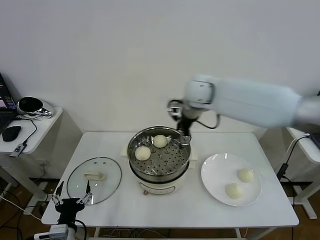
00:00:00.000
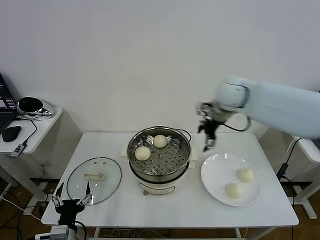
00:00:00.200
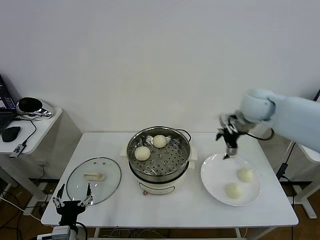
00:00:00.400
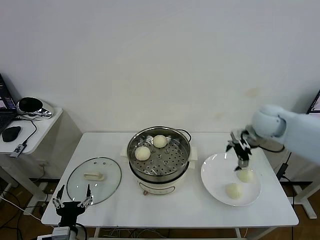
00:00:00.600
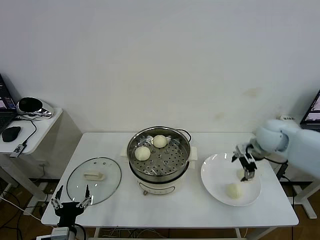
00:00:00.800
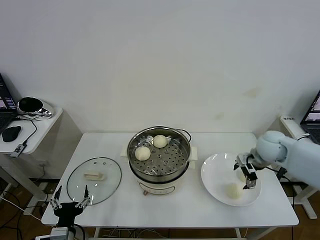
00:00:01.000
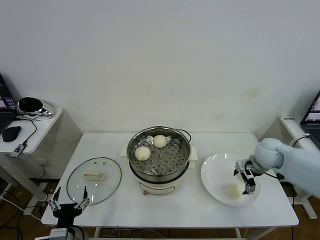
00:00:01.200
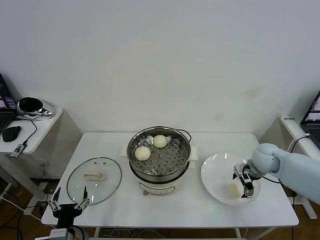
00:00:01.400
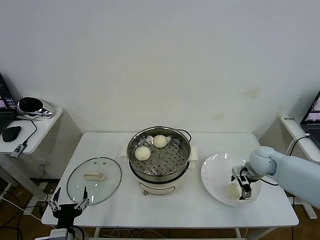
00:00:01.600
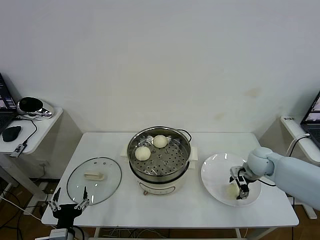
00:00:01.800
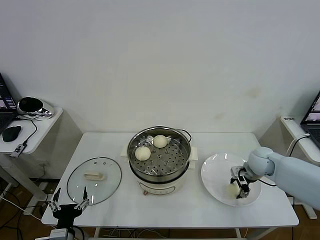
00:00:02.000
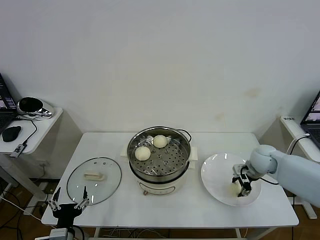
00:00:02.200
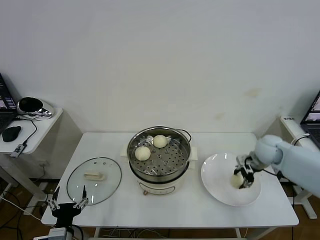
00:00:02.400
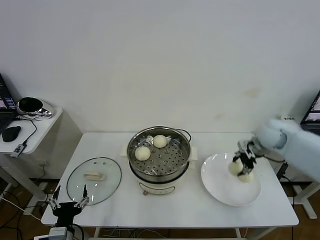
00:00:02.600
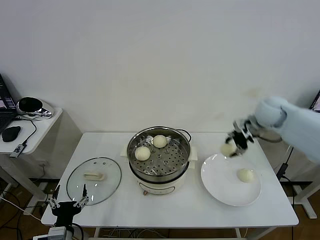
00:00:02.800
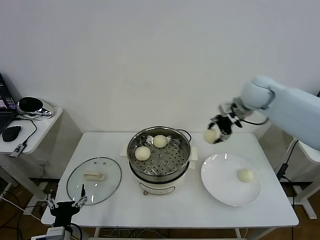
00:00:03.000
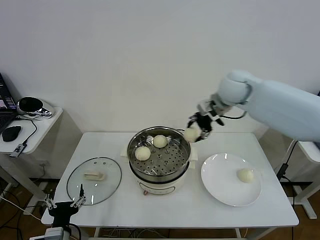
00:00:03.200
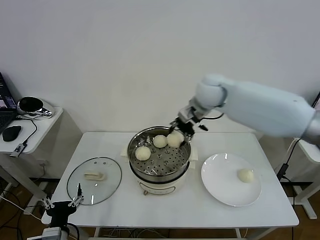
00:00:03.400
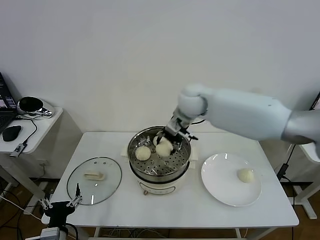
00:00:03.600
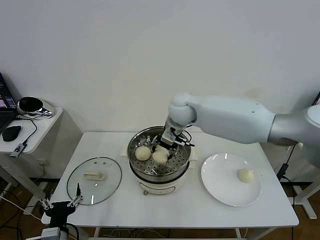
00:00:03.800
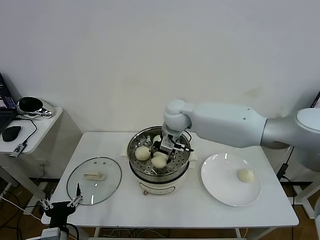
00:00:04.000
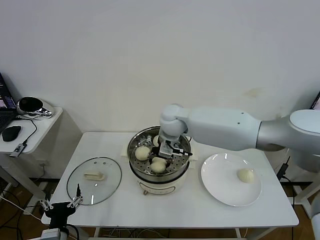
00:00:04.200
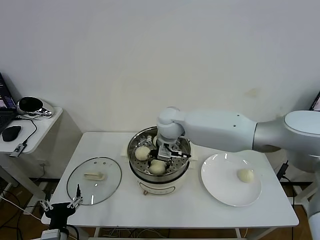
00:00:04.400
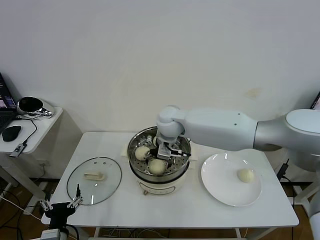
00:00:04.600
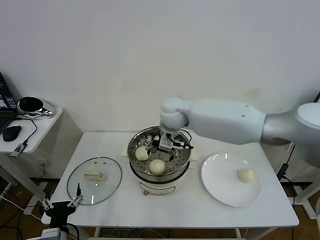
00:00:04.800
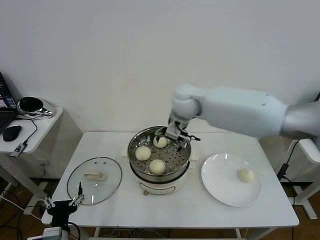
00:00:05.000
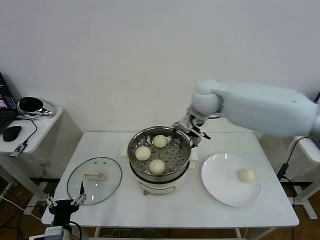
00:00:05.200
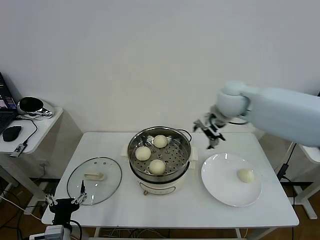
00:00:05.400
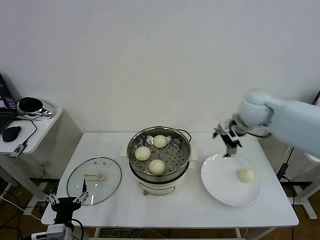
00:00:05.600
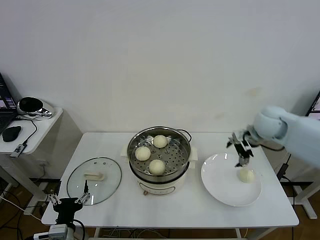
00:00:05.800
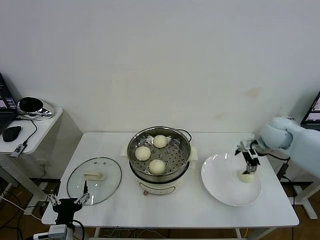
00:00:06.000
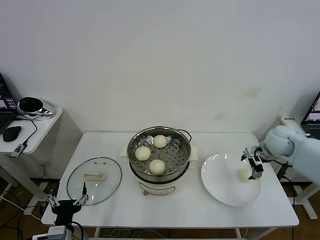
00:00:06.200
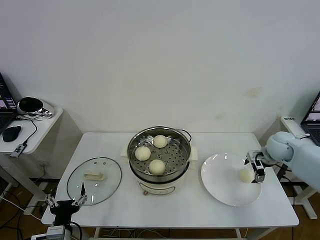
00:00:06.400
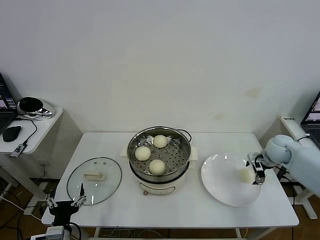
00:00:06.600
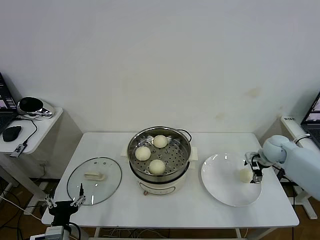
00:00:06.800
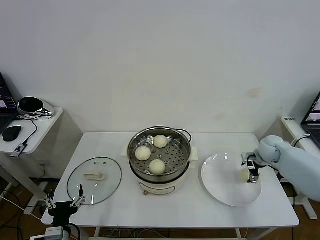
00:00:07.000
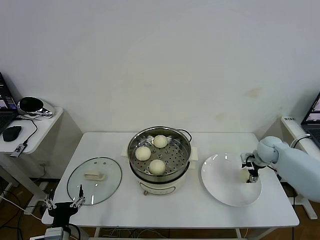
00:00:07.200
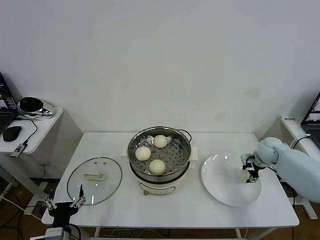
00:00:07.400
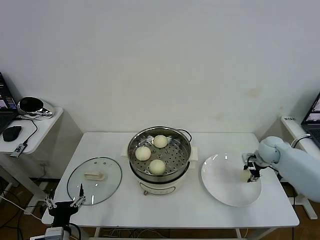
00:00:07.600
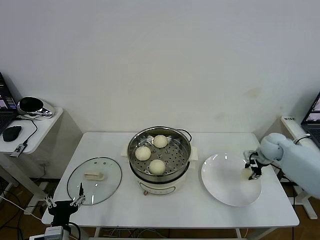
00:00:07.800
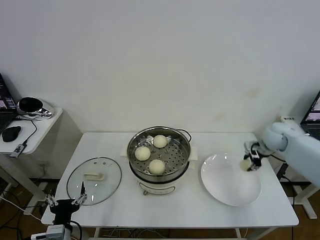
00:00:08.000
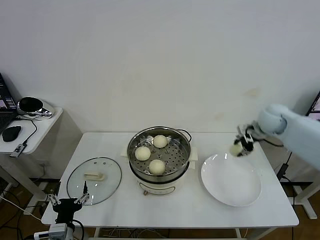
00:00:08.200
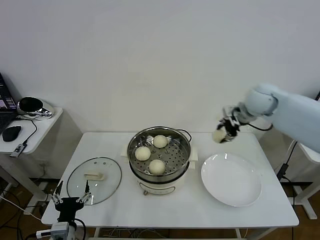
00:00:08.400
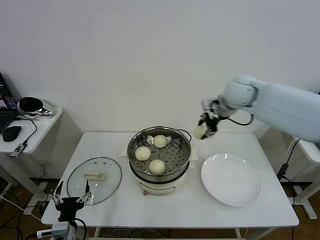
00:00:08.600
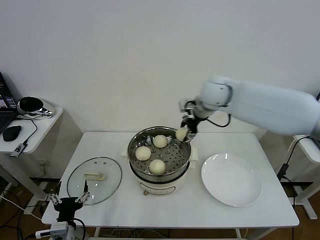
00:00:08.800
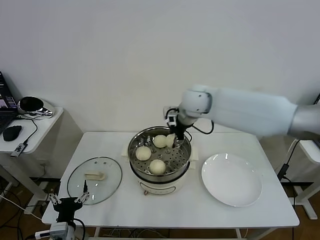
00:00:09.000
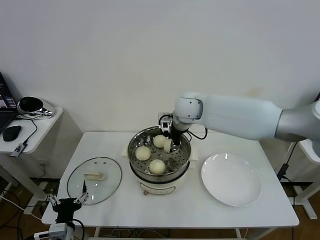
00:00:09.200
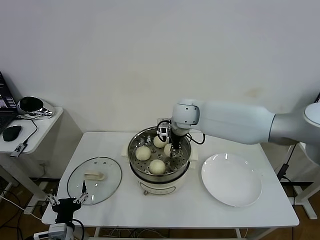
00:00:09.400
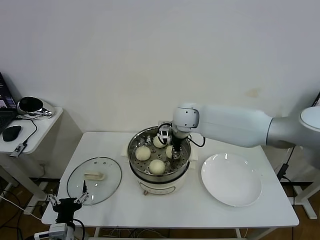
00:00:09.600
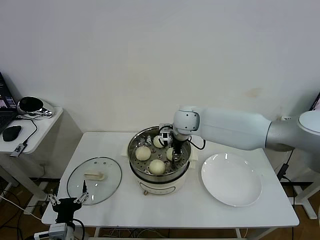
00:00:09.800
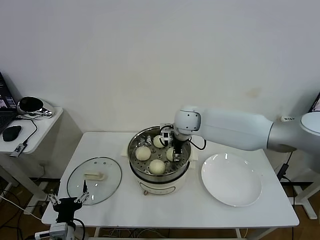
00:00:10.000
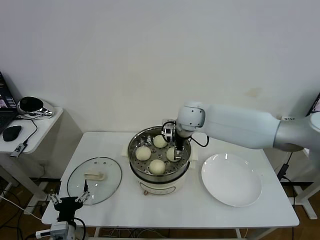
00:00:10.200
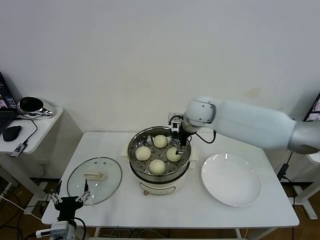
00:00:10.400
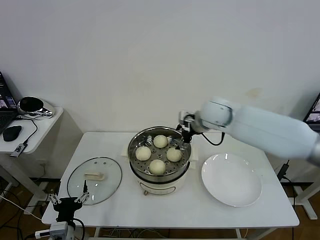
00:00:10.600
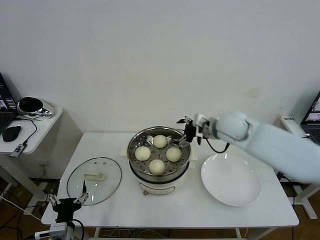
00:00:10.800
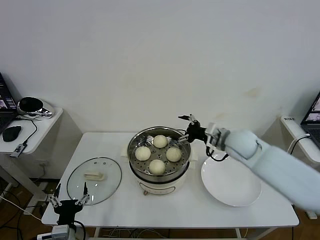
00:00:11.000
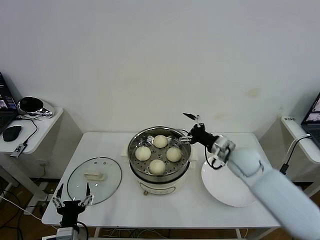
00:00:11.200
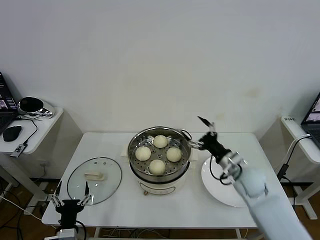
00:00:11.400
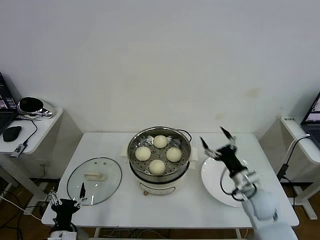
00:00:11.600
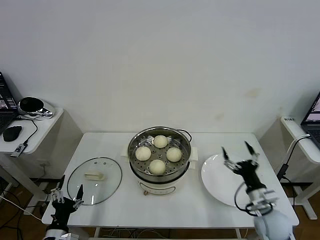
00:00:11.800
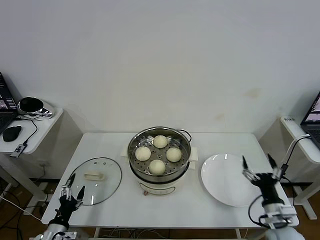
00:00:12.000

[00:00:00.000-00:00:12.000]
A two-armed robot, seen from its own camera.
Task of the whole recording: take steamed baozi put them in steamer then cover it.
Step, 00:00:00.000 to 00:00:02.000: Grasp the baozi in the plate with right gripper.
Step, 00:00:02.200 to 00:00:04.800: Place the baozi on the steamer with right gripper.
Step, 00:00:05.000 to 00:00:07.400: Grasp the baozi in the plate with right gripper.
Step, 00:00:07.600 to 00:00:10.400: Place the baozi on the steamer with right gripper.
00:00:00.000 to 00:00:01.600: The right gripper heads downward and to the right, covering some 30 cm.
00:00:01.600 to 00:00:03.000: The right gripper heads upward and to the left, covering about 25 cm, and closes its fingers.
00:00:03.000 to 00:00:04.400: The right gripper travels to the left and downward by some 25 cm, and opens.
00:00:04.400 to 00:00:06.000: The right gripper travels to the right by roughly 35 cm.
00:00:06.000 to 00:00:07.600: The right gripper moves downward, roughly 10 cm, and closes its fingers.
00:00:07.600 to 00:00:09.000: The right gripper goes approximately 40 cm to the left and upward.
00:00:09.000 to 00:00:10.400: The right gripper opens.
00:00:10.400 to 00:00:12.000: The right gripper goes approximately 50 cm backward, downward and to the right. The left gripper travels to the left by some 10 cm.

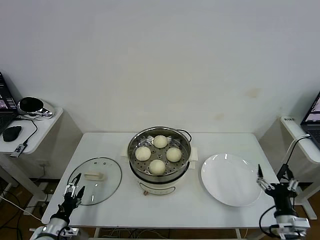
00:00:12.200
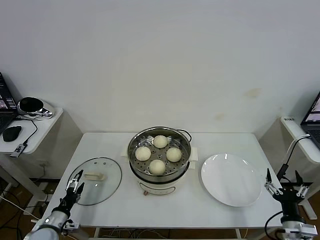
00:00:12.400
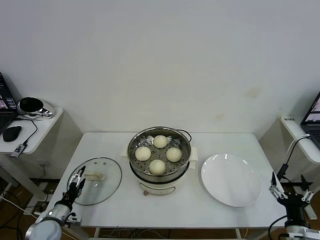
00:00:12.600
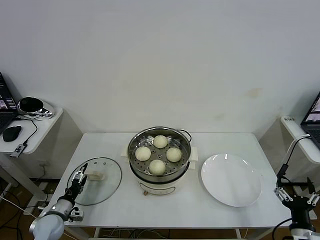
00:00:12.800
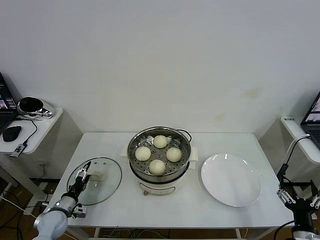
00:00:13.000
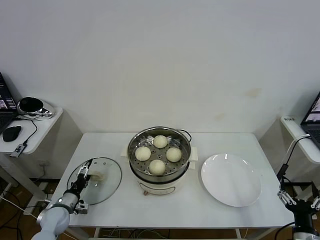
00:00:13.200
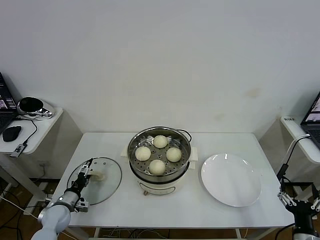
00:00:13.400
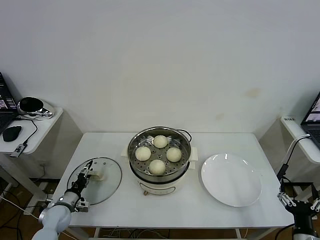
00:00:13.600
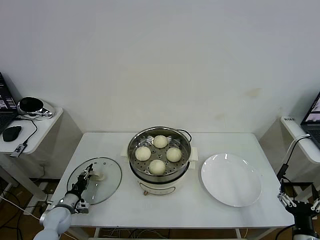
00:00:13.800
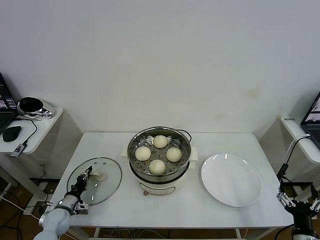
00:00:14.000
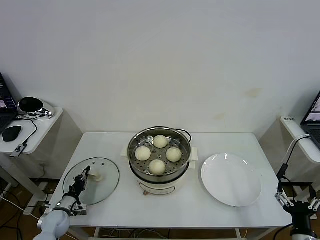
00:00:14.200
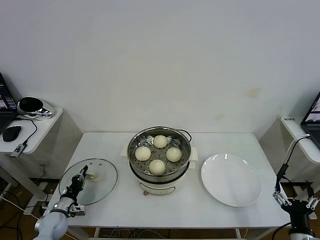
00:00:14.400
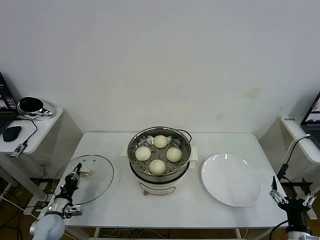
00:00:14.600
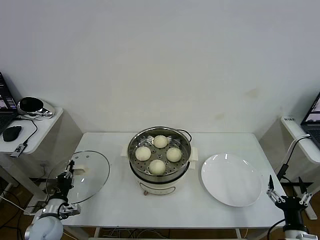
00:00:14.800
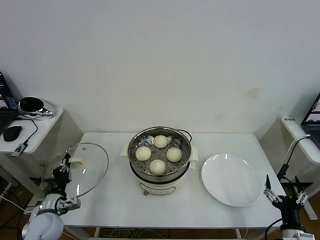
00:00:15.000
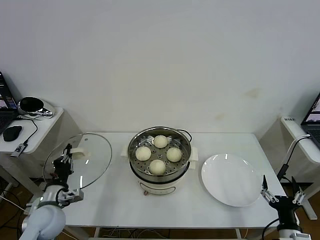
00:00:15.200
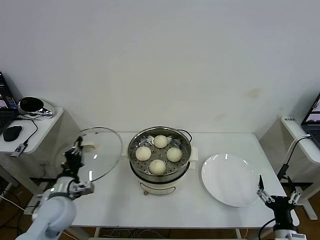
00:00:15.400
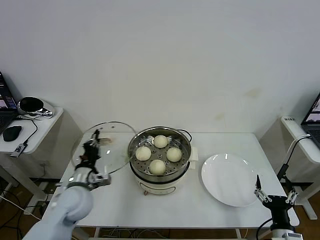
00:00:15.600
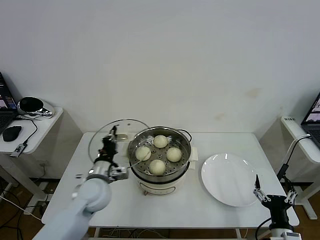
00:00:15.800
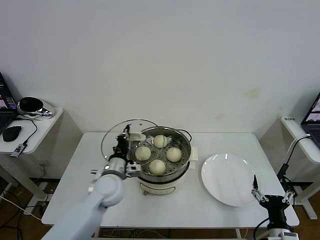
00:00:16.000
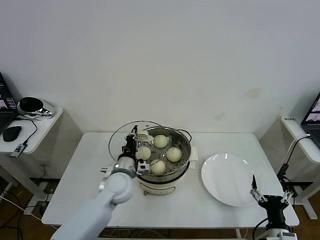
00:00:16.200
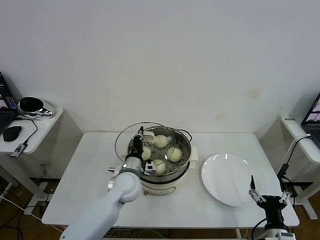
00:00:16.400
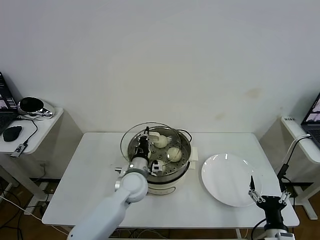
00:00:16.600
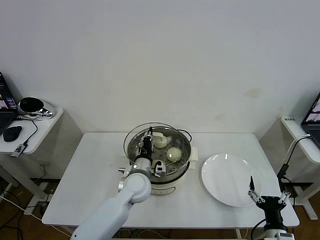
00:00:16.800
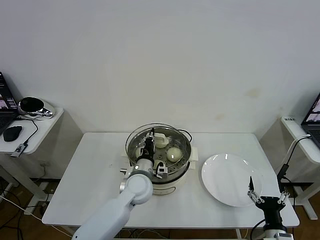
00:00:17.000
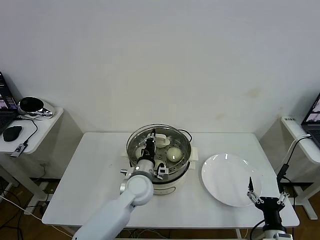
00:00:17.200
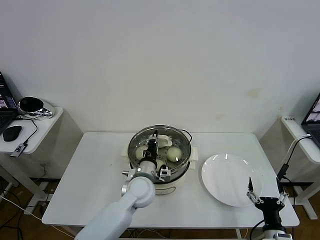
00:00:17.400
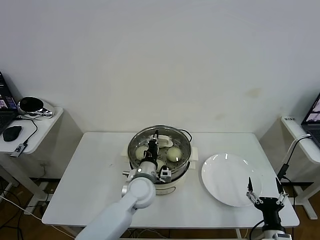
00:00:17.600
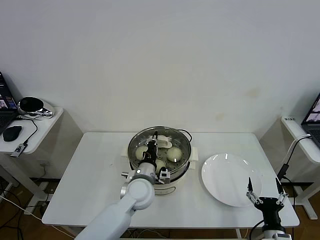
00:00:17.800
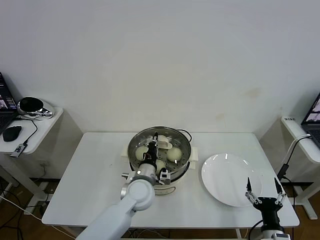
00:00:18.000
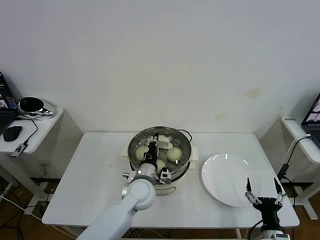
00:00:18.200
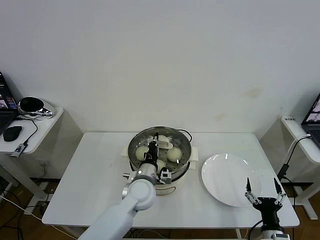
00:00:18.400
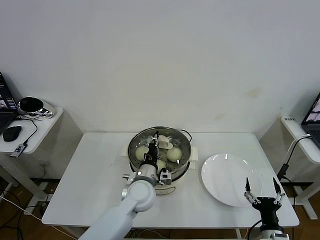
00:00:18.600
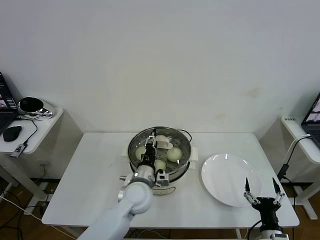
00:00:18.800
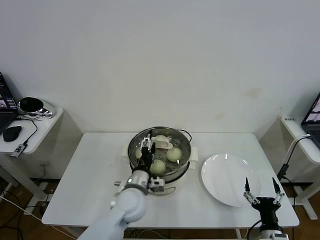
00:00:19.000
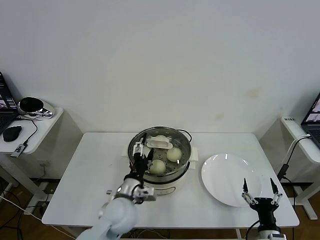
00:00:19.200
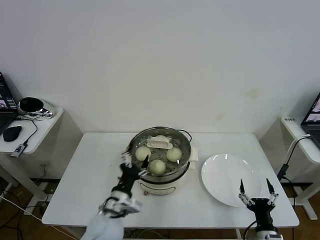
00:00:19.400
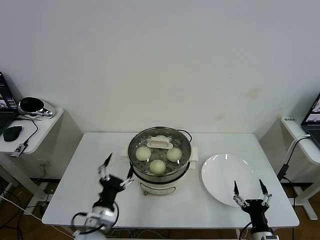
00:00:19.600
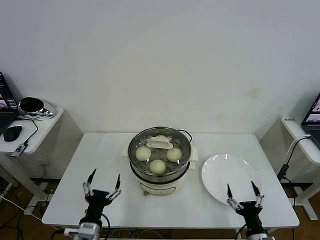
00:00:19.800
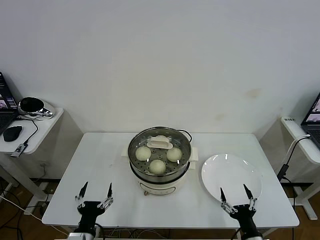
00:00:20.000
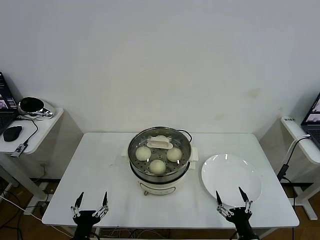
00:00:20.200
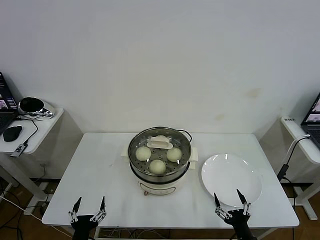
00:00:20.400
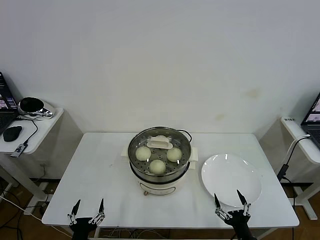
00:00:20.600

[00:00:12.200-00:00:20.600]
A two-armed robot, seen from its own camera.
Task of the whole recording: take steamed baozi put them in steamer then cover it.
Step, 00:00:12.200 to 00:00:14.200: Grasp the pot lid with left gripper.
Step, 00:00:14.400 to 00:00:19.200: Place the pot lid on the steamer with left gripper.
00:00:12.200 to 00:00:13.600: The right gripper is displaced backward by roughly 5 cm. The left gripper heads forward, covering some 10 cm.
00:00:13.600 to 00:00:15.000: The left gripper is displaced upward and backward by about 10 cm, and closes its fingers.
00:00:15.000 to 00:00:16.400: The left gripper shifts roughly 25 cm to the right and forward.
00:00:16.400 to 00:00:17.800: The left gripper goes about 5 cm to the right.
00:00:17.800 to 00:00:19.200: The left gripper moves backward, approximately 5 cm, and opens.
00:00:19.200 to 00:00:20.600: The right gripper moves approximately 5 cm. Meanwhile the left gripper travels backward, to the left and downward by about 25 cm.
